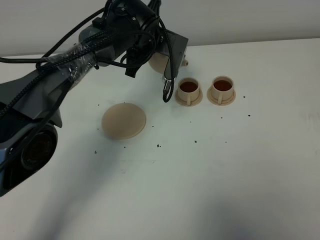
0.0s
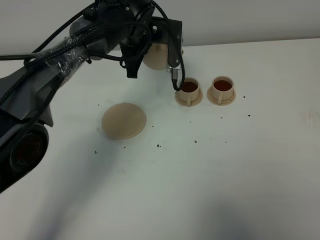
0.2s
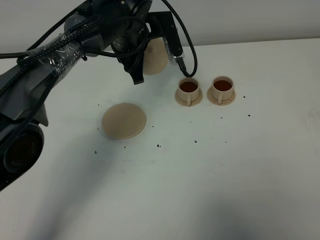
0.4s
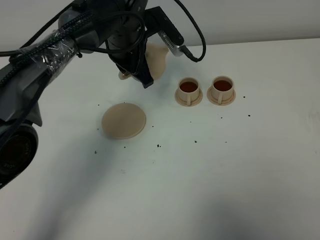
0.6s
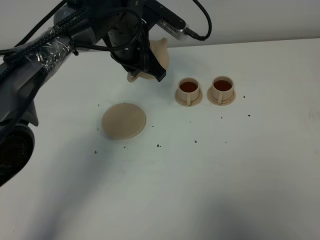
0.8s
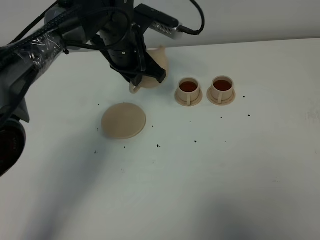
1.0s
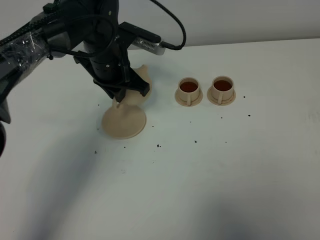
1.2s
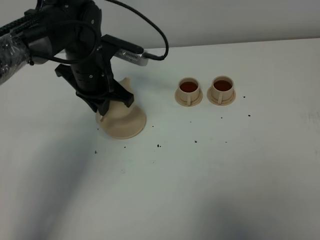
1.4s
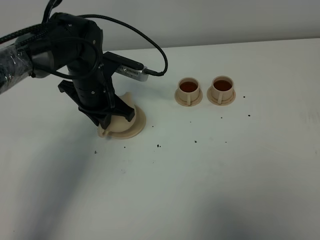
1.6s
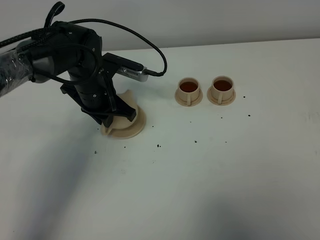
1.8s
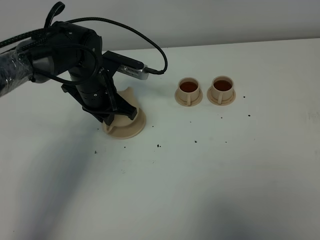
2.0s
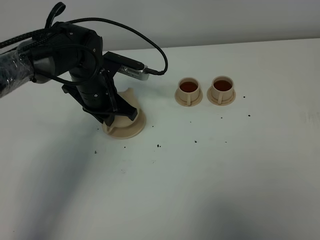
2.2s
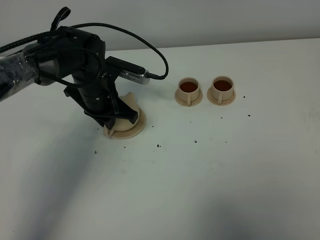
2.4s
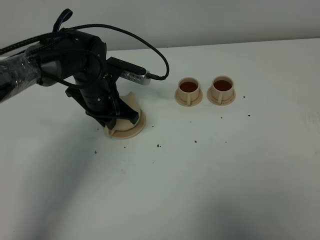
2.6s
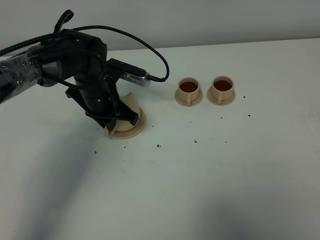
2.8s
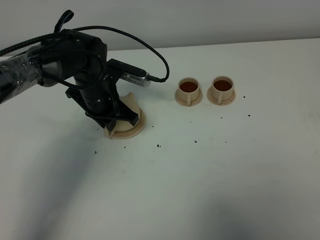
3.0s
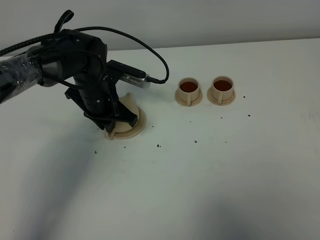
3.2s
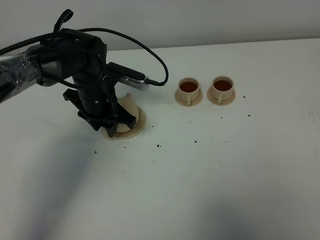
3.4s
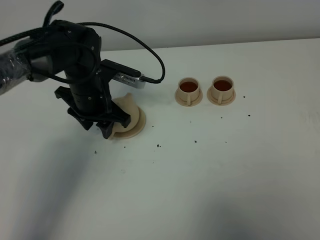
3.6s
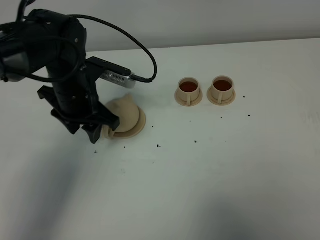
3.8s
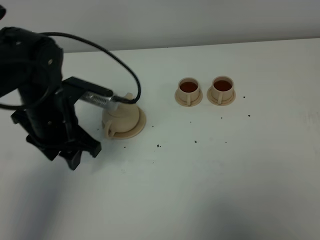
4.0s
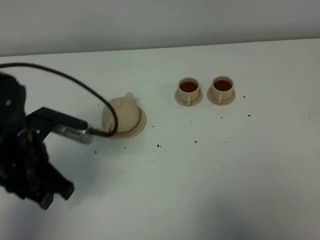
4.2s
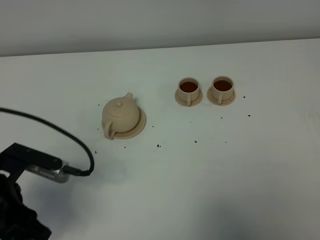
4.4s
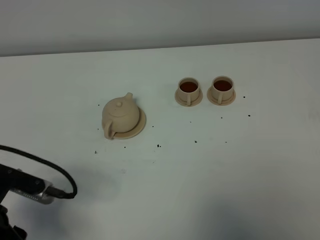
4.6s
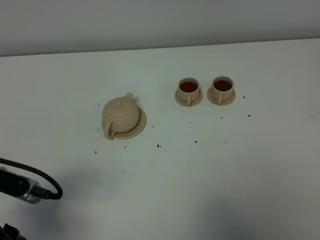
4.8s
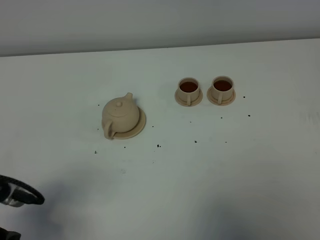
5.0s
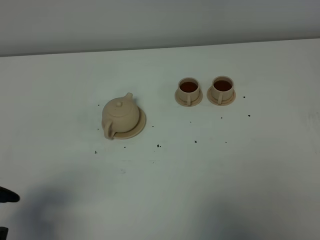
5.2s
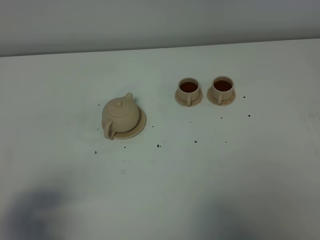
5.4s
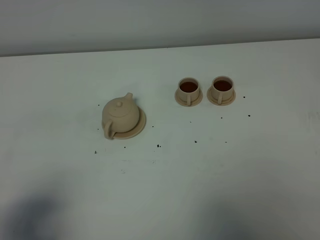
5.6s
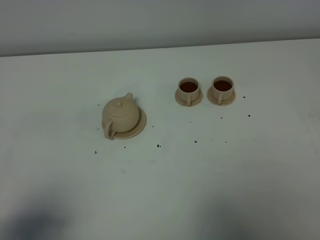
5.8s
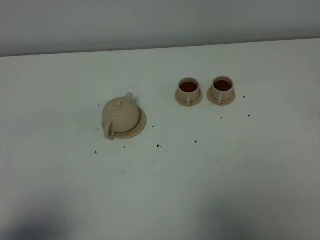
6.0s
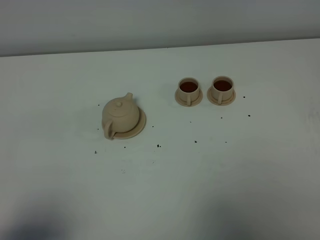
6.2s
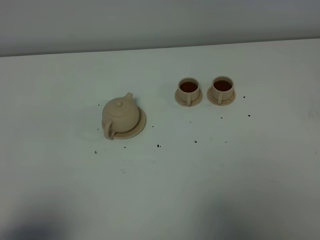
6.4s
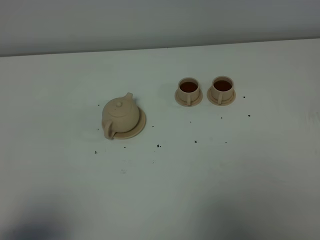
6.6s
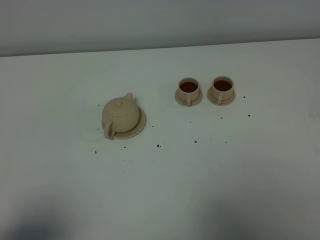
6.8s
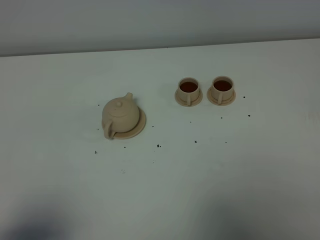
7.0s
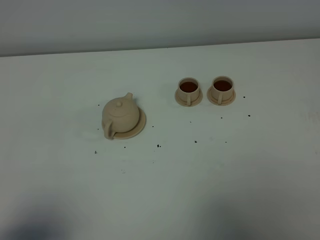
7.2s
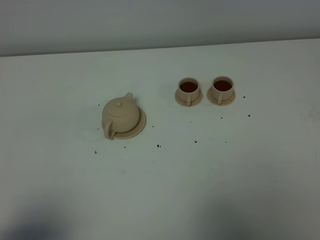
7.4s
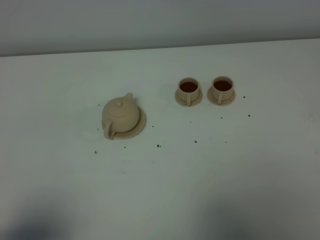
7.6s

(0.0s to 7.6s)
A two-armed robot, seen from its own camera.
Task of the whole recording: grasp the brown teapot and pour the tea into the two brown teacups one by one, put the brown teapot back in its original place.
0.0s - 1.6s: The left gripper travels to the left and backward by about 10 cm.
1.6s - 3.0s: There are only small adjustments of the grippers.
3.0s - 4.6s: The left gripper heads backward and to the left, covering approximately 30 cm, and opens.
4.6s - 6.0s: The left gripper moves backward and upward, about 15 cm.
6.0s - 7.6s: The two grippers keep their place.

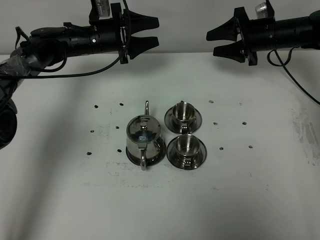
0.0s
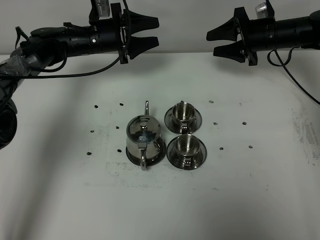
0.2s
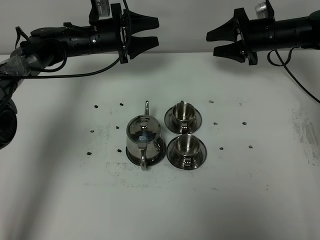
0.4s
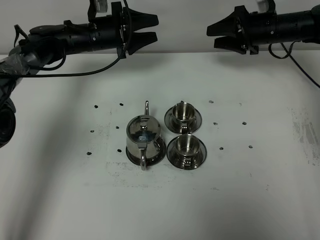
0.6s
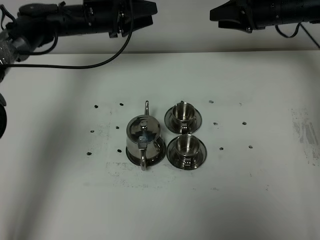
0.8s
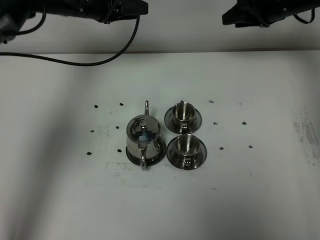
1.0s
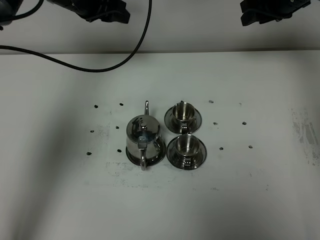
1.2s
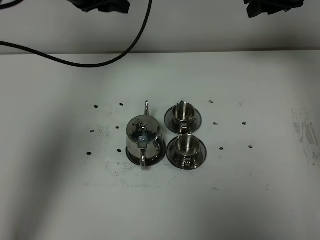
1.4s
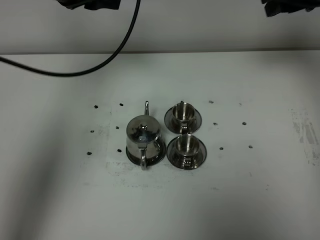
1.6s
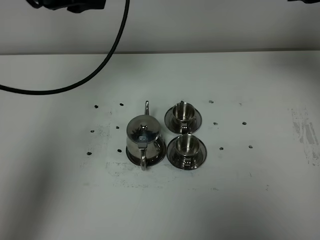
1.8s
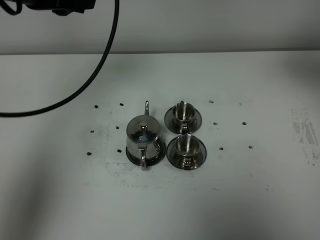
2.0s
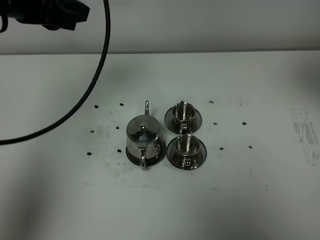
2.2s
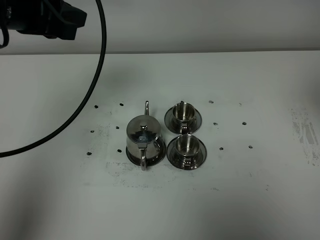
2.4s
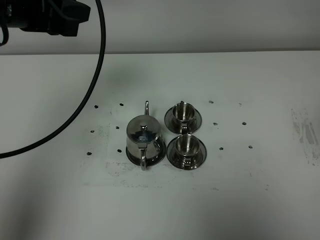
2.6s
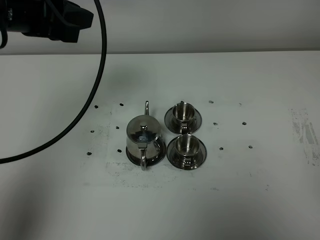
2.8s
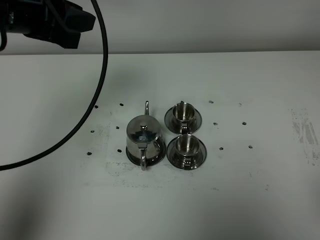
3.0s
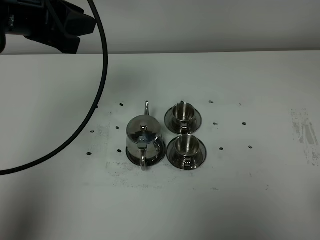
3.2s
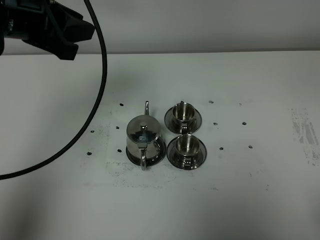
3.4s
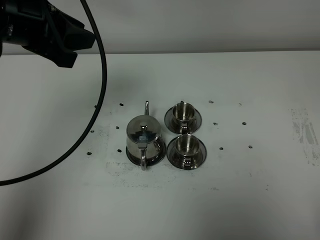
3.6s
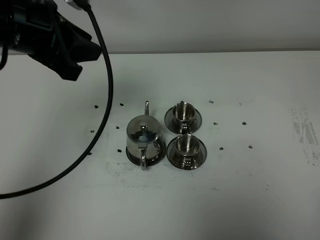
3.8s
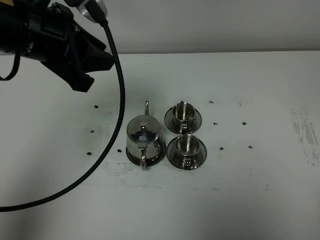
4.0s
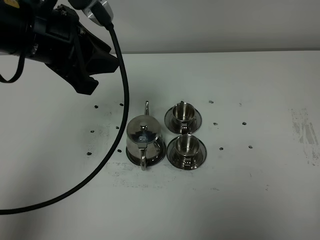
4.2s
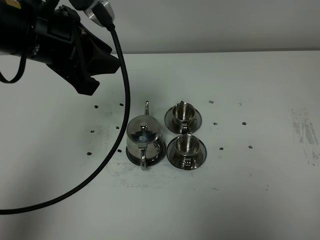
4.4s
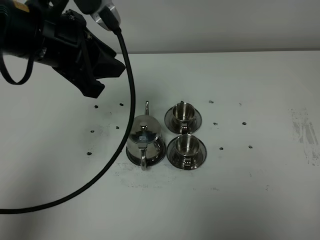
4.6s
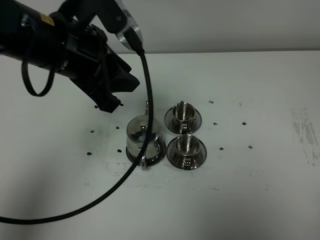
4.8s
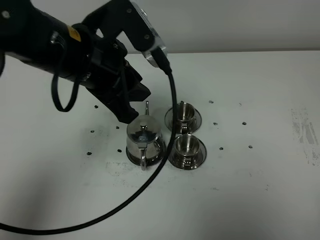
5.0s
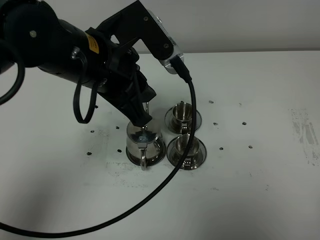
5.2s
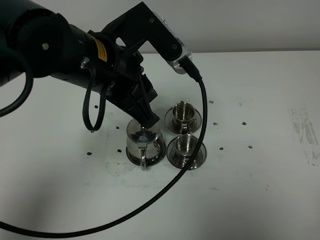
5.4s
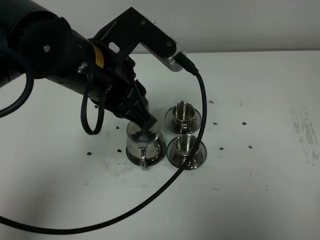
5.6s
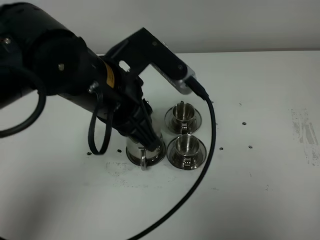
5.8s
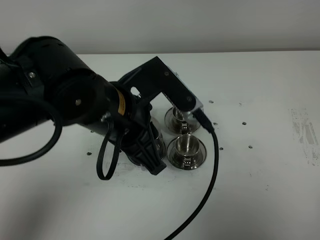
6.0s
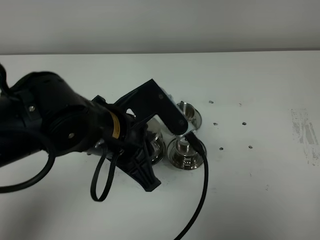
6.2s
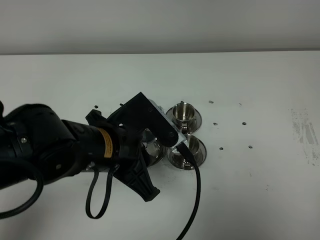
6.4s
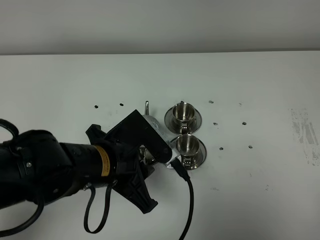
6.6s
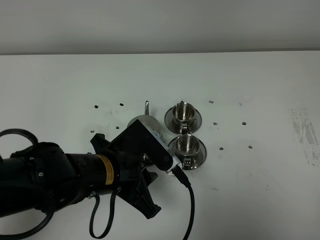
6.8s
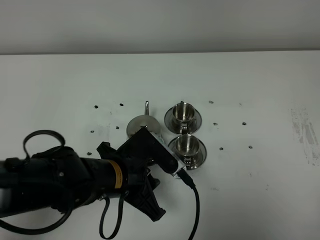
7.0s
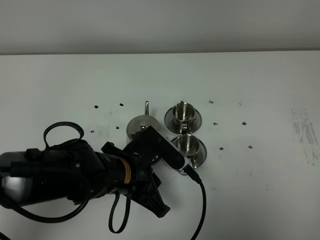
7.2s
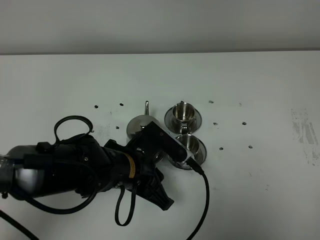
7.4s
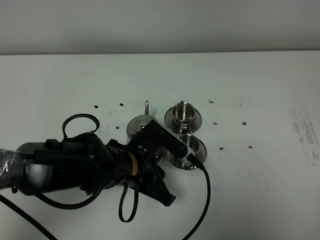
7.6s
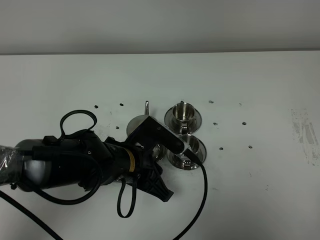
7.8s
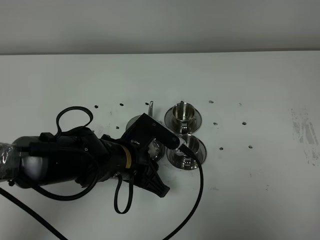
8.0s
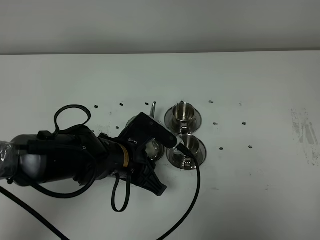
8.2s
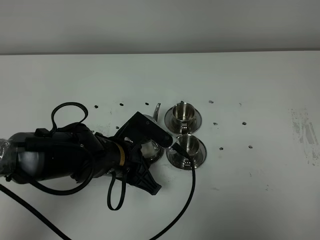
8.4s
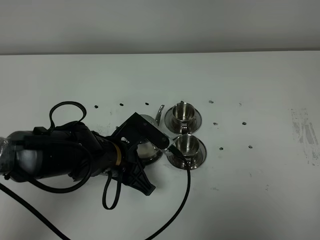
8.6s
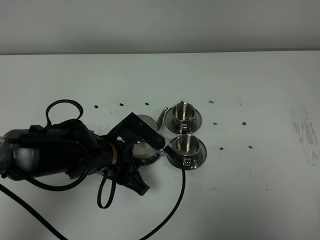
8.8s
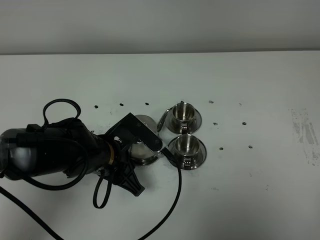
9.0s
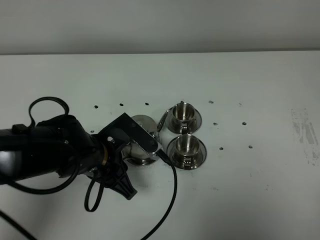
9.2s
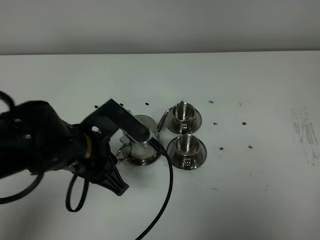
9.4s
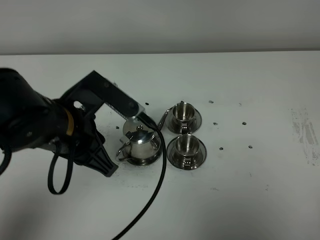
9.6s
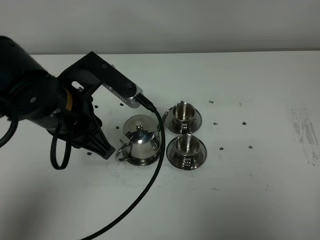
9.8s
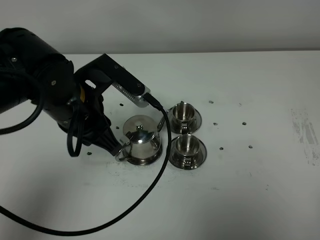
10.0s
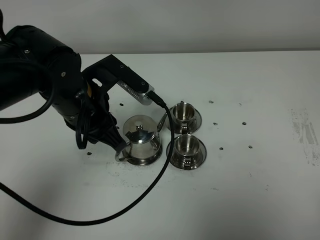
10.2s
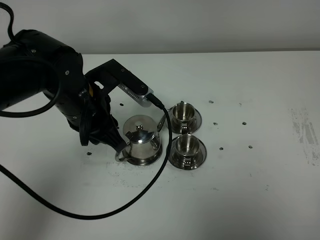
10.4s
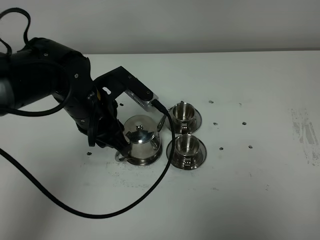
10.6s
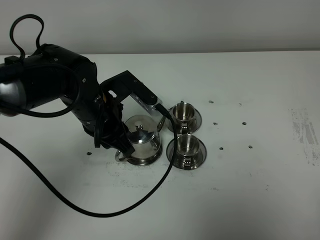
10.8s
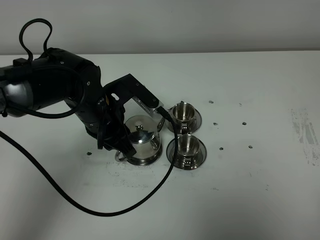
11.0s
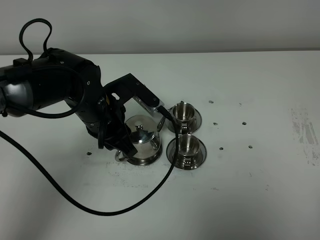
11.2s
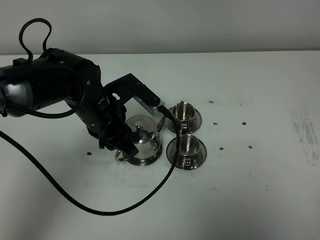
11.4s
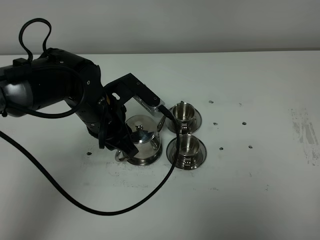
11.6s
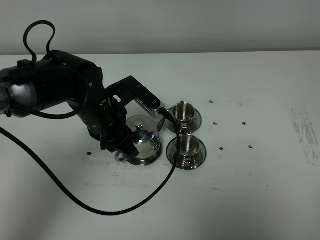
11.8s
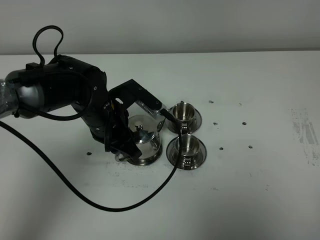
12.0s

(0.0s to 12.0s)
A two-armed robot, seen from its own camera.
Task of the whole recording: grasp the stainless steel teapot and pour the tea into the two stainless steel teacups one by one, put the stainless steel teapot back in its original place.
0.0s - 1.6s: The two grippers go approximately 20 cm upward and backward.
1.6s - 3.0s: The left gripper is displaced backward by some 10 cm. Meanwhile the right gripper shifts roughly 40 cm backward.
3.0s - 4.4s: The right gripper goes roughly 10 cm downward.
4.4s - 6.0s: The left gripper heads to the right, downward and backward, covering approximately 15 cm.
6.0s - 7.6s: The left gripper moves downward, approximately 15 cm.
7.6s - 9.0s: The grippers move only a little.
9.0s - 10.4s: The left gripper goes approximately 10 cm upward.
10.4s - 12.0s: The left gripper goes roughly 5 cm downward.

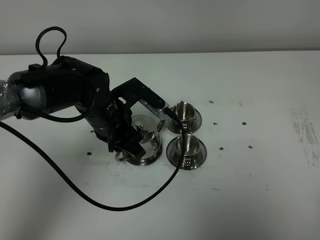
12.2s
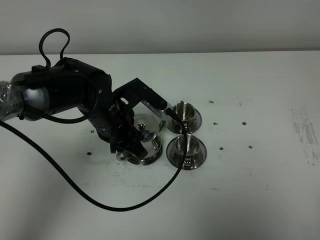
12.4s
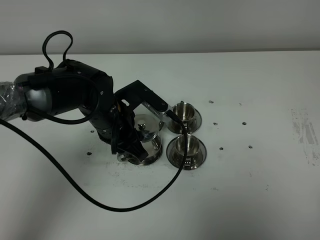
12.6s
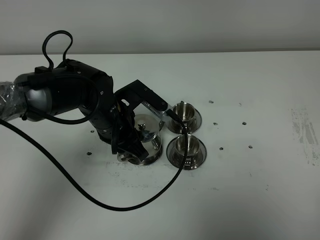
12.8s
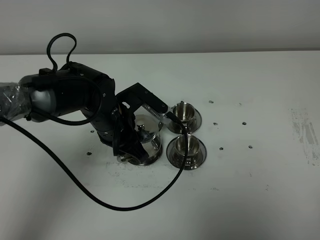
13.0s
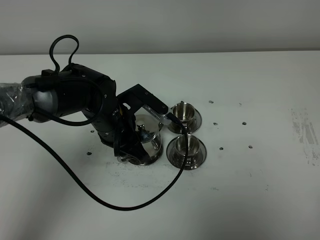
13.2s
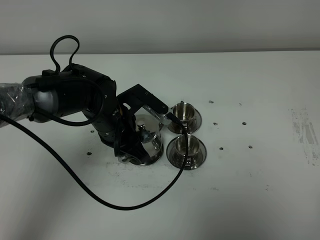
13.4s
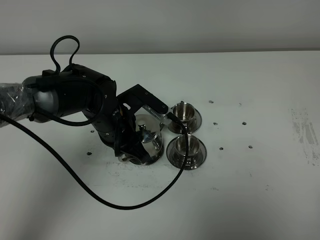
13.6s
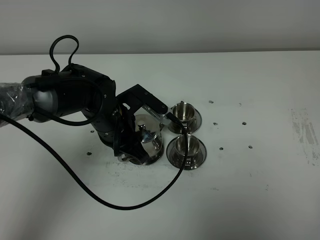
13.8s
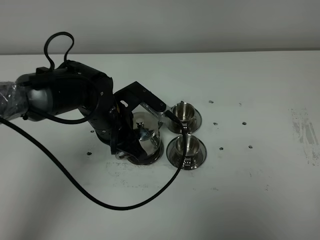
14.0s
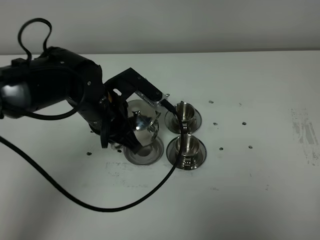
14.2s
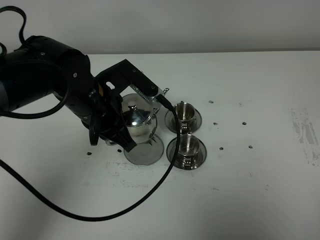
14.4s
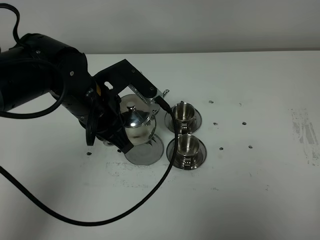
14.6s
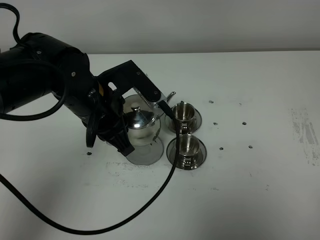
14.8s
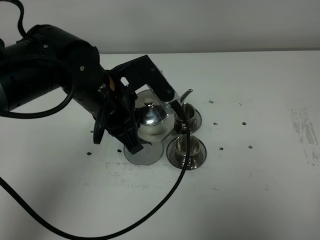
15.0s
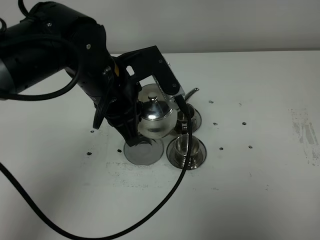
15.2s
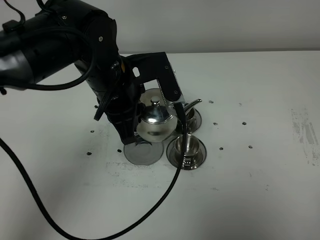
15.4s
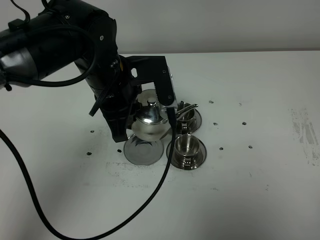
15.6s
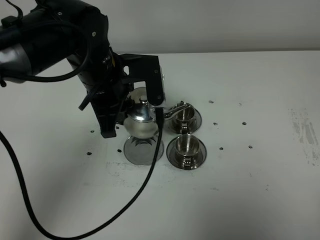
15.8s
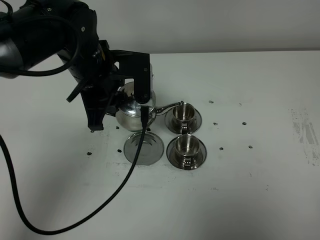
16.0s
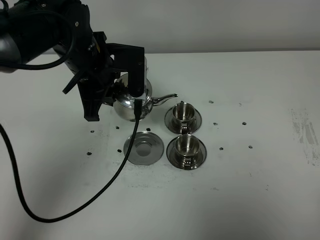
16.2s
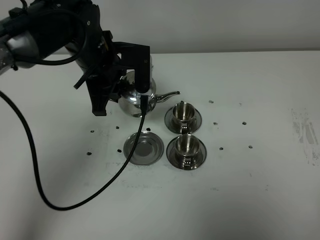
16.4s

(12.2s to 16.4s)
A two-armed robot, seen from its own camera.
Task of the whole recording: grasp the stainless steel teapot and pour the tea into the two stainless steel teacups one by one, put the stainless steel teapot back in its original place.
Step, 12.2s - 14.2s: Pick up the teapot with the left gripper.
12.2s - 13.6s: The left gripper closes up.
13.6s - 15.0s: The left gripper heads upward, covering some 10 cm.
15.0s - 16.4s: The left gripper heads forward, covering about 10 cm.
